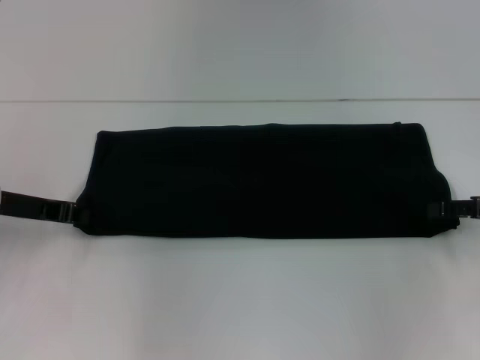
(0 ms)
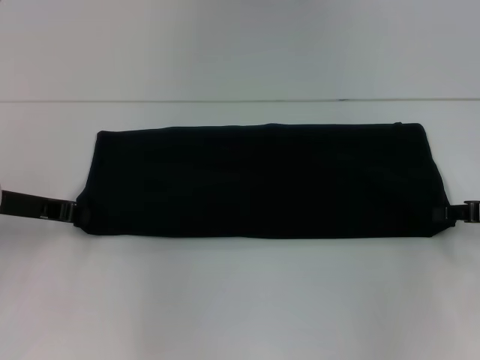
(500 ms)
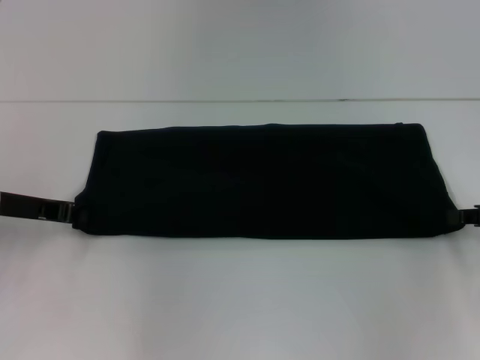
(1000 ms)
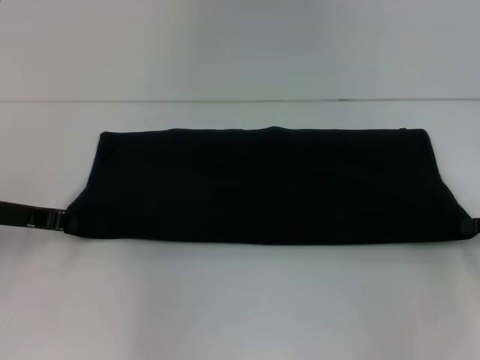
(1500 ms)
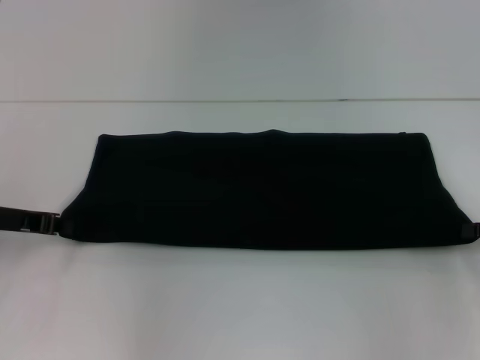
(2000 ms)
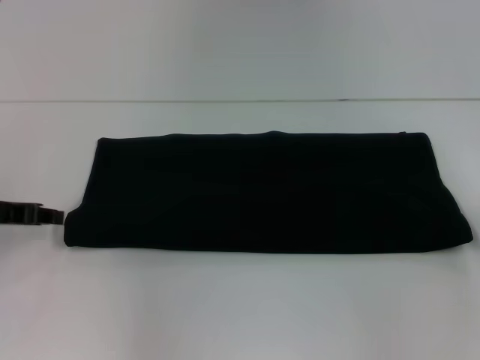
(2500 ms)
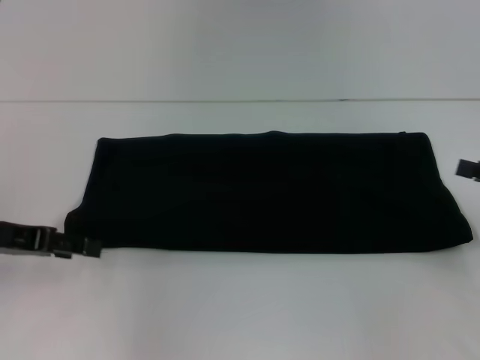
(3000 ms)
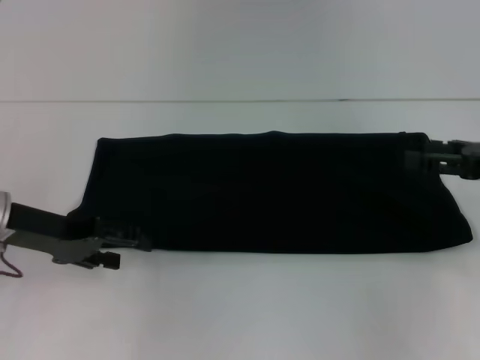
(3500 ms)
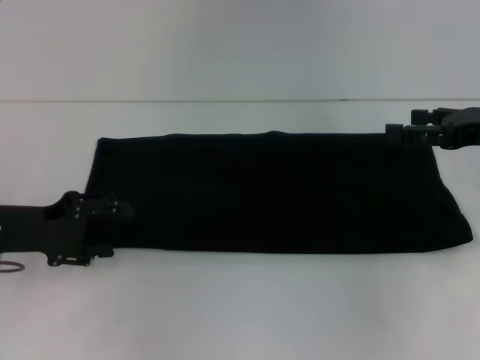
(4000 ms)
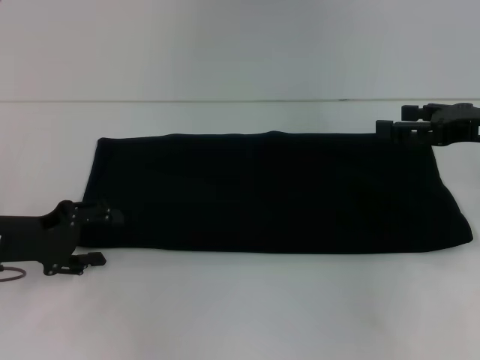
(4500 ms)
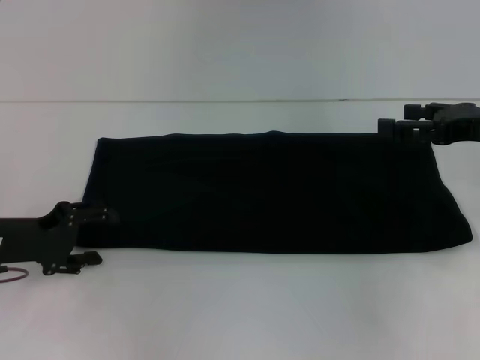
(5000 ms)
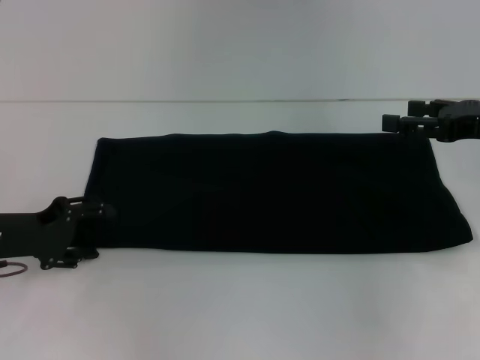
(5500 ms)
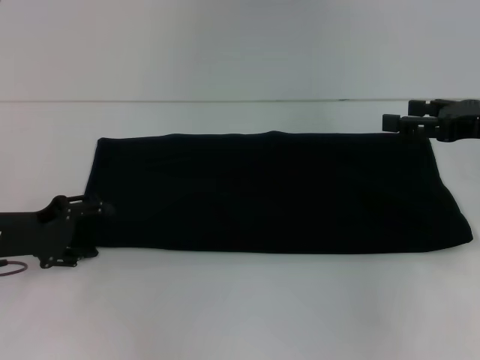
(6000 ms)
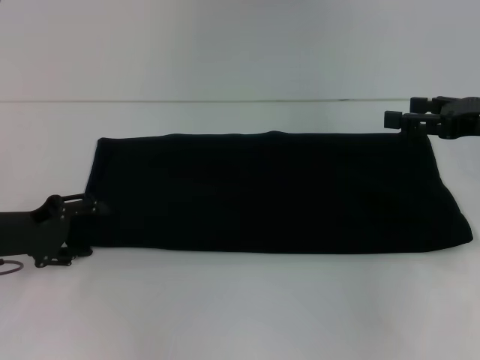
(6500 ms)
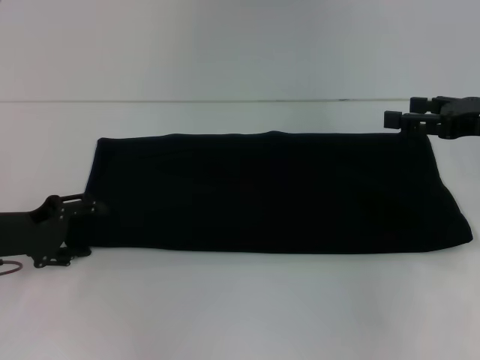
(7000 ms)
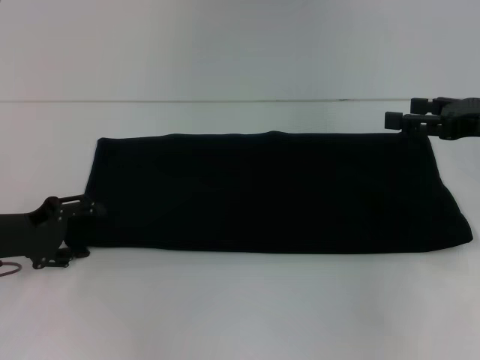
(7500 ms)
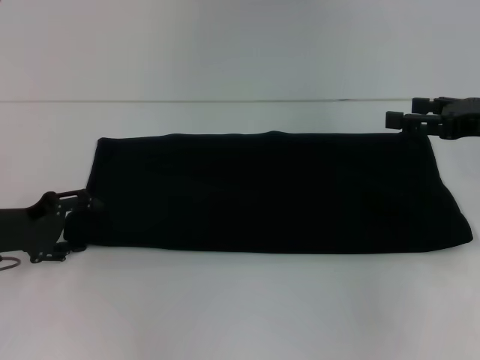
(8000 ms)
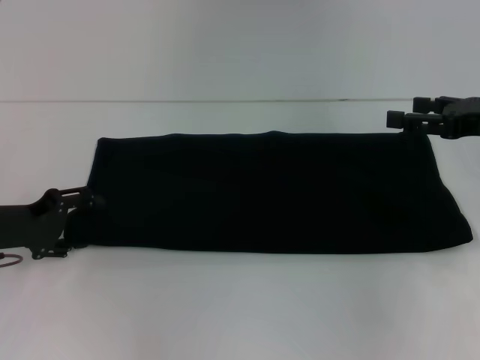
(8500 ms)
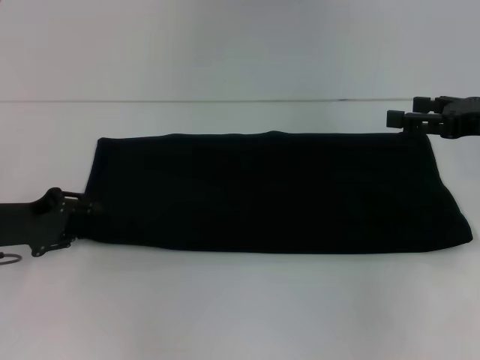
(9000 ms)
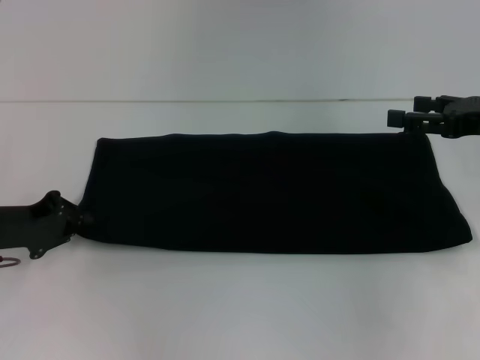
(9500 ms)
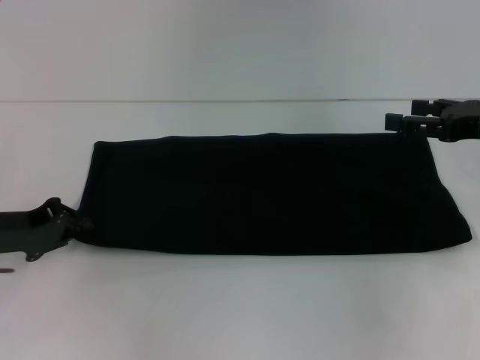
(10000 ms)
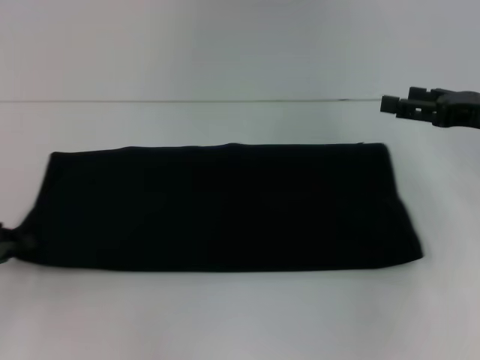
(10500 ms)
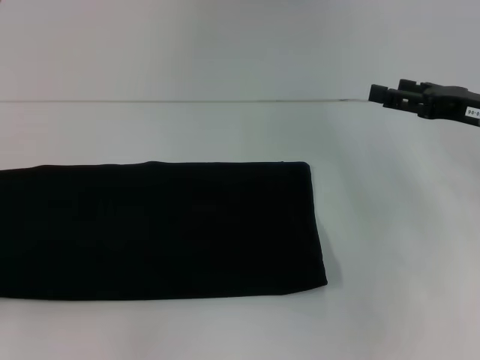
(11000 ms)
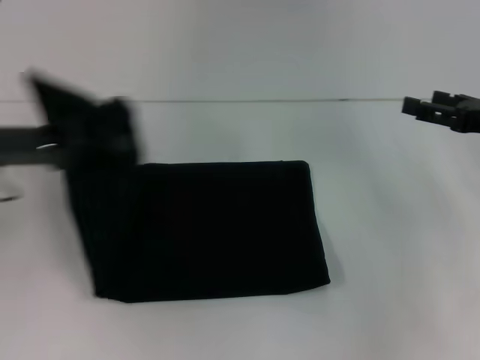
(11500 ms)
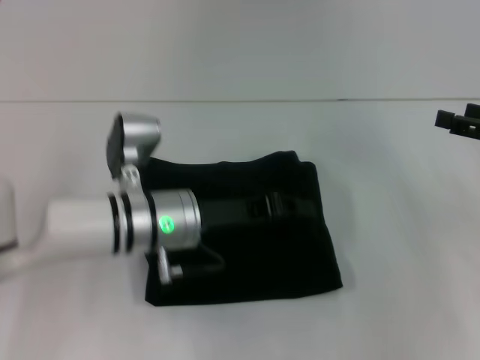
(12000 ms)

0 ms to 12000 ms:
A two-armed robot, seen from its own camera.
0 ms to 2000 ms: The right gripper closes its fingers.
2000 ms to 4000 ms: The right gripper is displaced upward, forward and to the left by some 10 cm, and opens. Meanwhile the left gripper opens up.
4000 ms to 6000 ms: The grippers move only a little.
6000 ms to 8000 ms: Both grippers stay about where they are.
8000 ms to 10000 ms: The left gripper closes.
10000 ms to 12000 ms: The right gripper shifts by approximately 5 cm. The left gripper goes some 20 cm to the right.

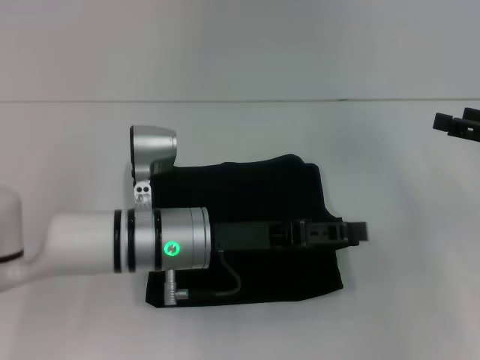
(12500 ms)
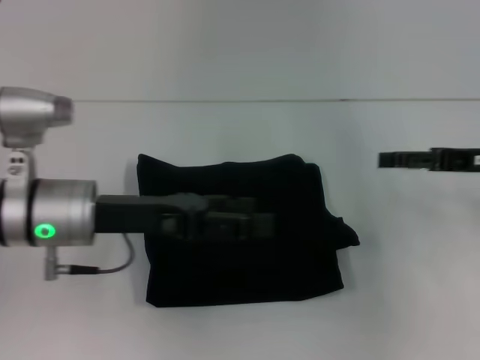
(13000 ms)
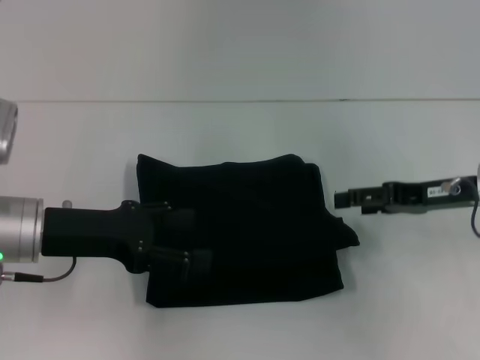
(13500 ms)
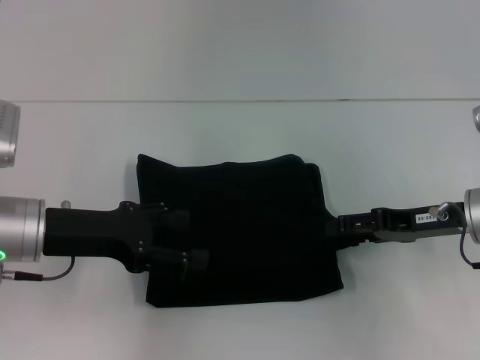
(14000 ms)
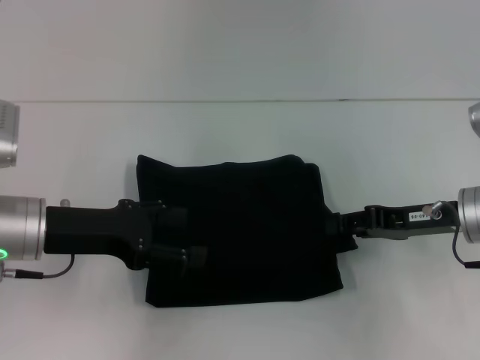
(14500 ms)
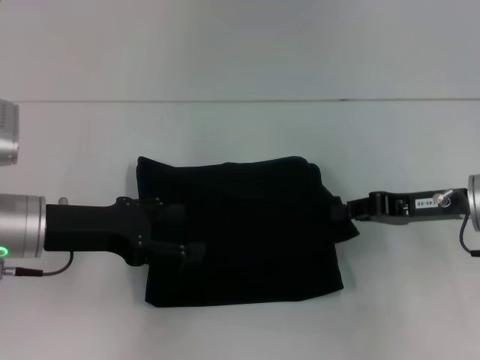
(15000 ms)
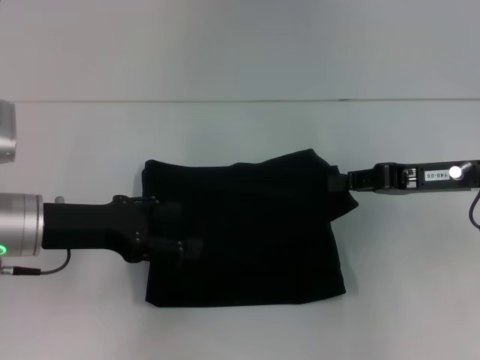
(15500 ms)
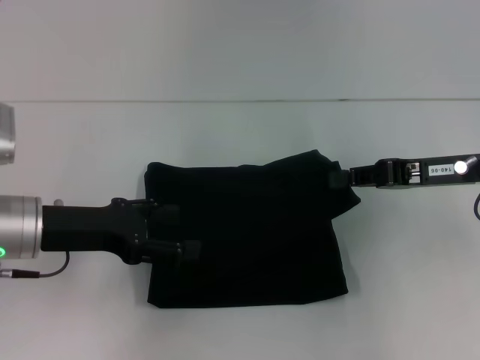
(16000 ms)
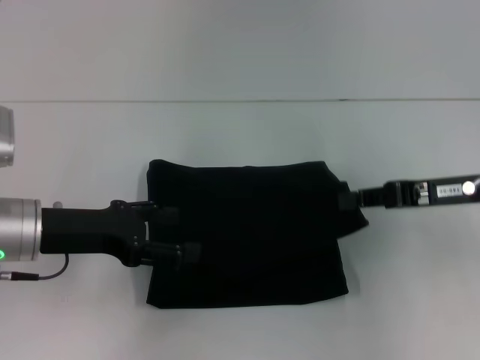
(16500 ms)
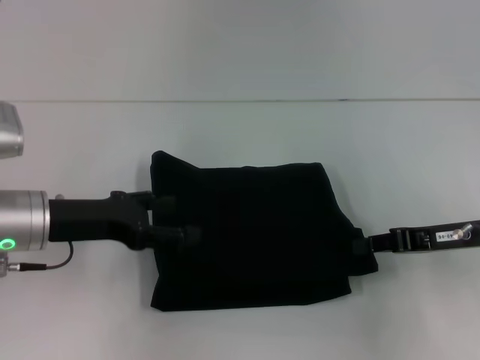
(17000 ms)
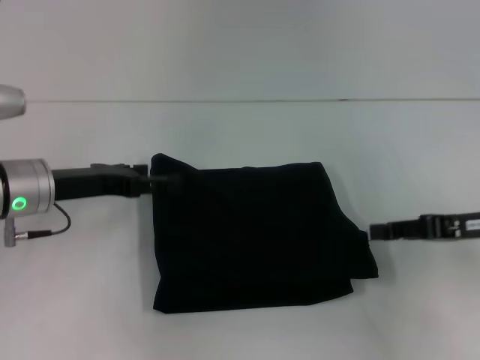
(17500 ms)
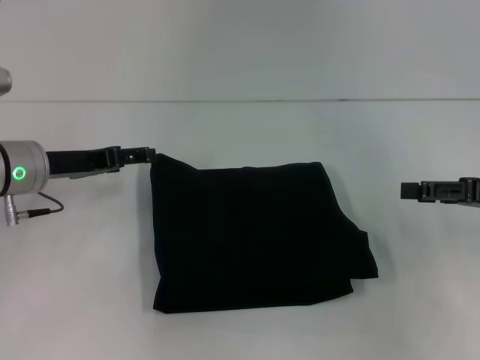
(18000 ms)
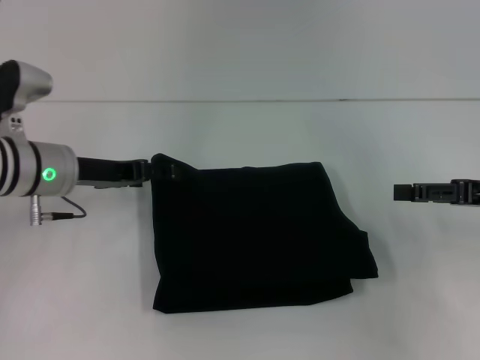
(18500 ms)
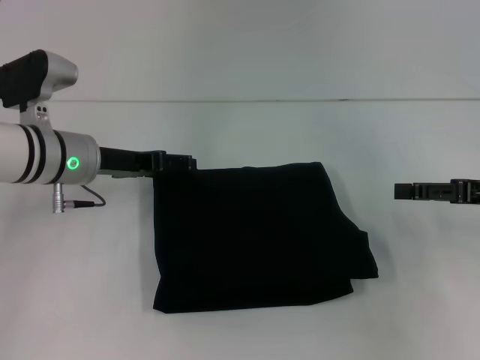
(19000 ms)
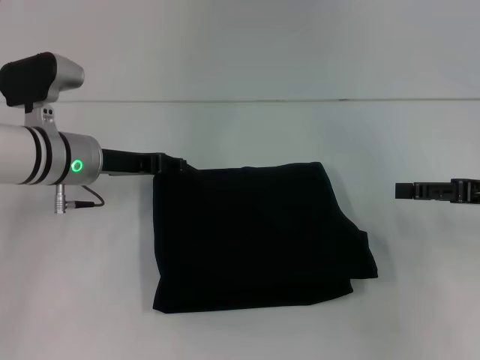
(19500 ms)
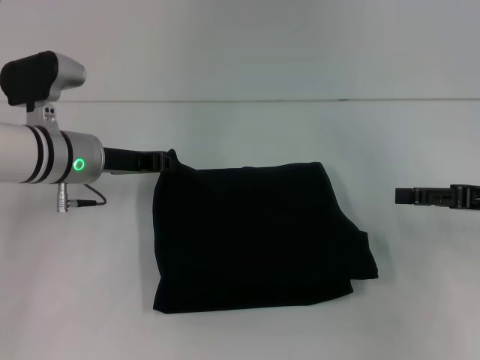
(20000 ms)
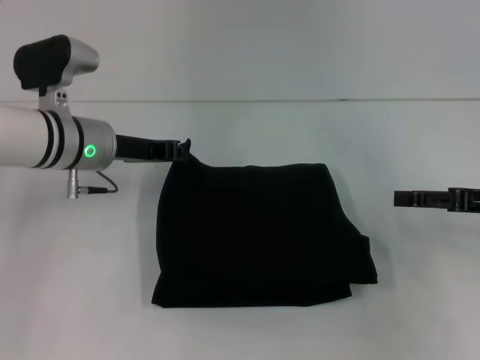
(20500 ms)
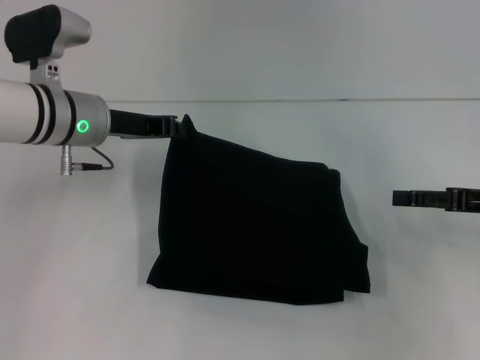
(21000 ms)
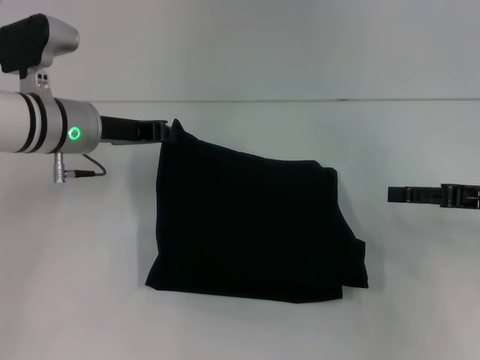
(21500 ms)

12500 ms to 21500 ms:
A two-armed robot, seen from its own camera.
12500 ms to 14500 ms: The grippers both shift to the left by approximately 10 cm. The right gripper closes its fingers. Meanwhile the left gripper opens its fingers.
14500 ms to 17000 ms: The right gripper closes.
17000 ms to 19500 ms: The right gripper is displaced to the right by about 5 cm, and opens. The left gripper moves forward, roughly 10 cm.
19500 ms to 21500 ms: The left gripper closes its fingers.

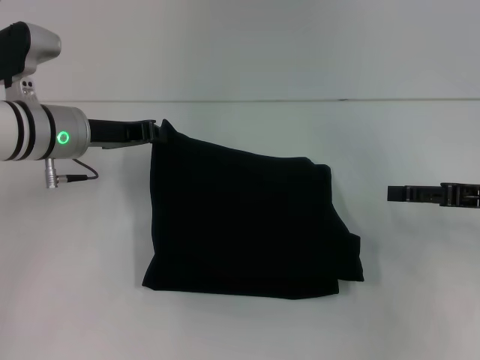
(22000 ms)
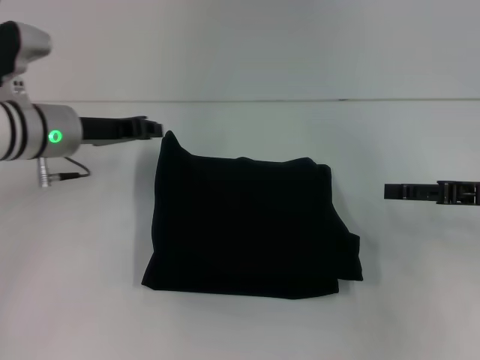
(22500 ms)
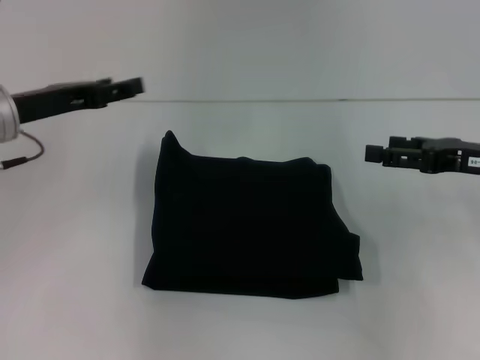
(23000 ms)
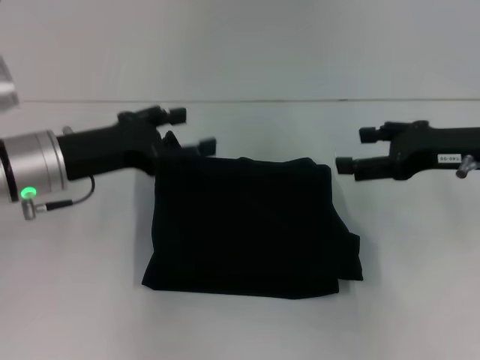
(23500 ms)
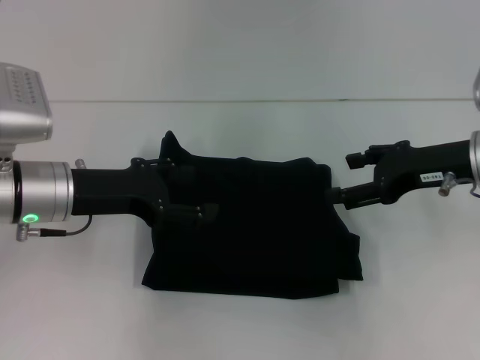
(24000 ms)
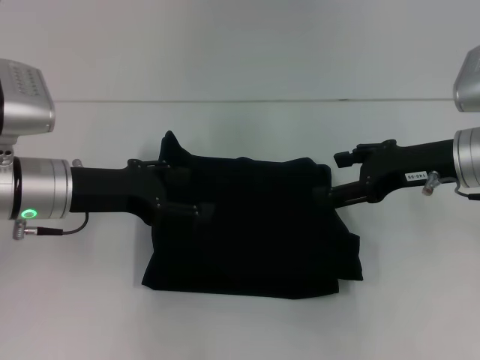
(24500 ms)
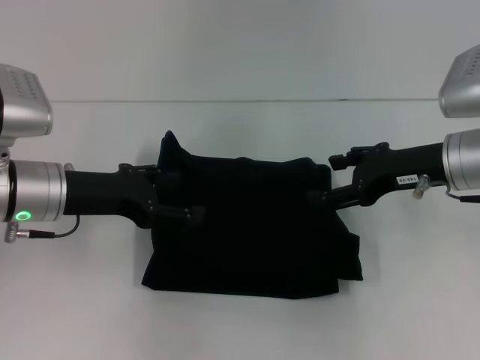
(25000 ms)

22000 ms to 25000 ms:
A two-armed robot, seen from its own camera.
22000 ms to 23500 ms: The left gripper heads backward, covering roughly 5 cm, and opens up. The right gripper shifts some 5 cm to the left.
23500 ms to 25000 ms: The grippers stay close to where they were, moving slightly.
